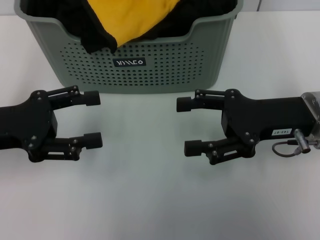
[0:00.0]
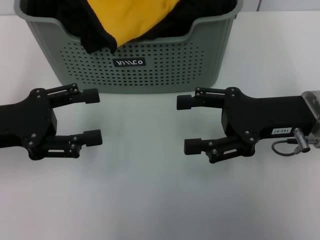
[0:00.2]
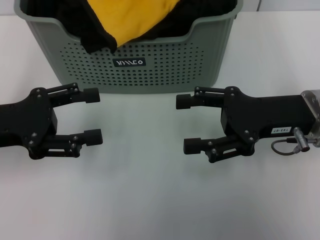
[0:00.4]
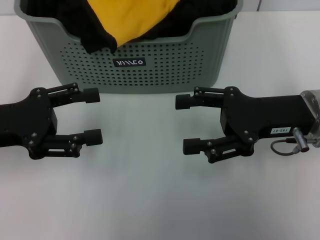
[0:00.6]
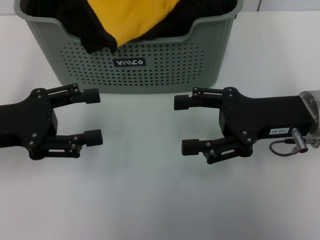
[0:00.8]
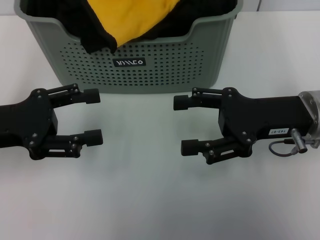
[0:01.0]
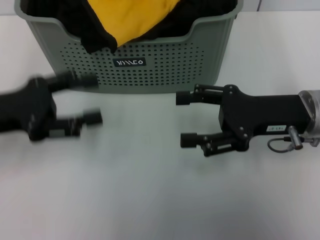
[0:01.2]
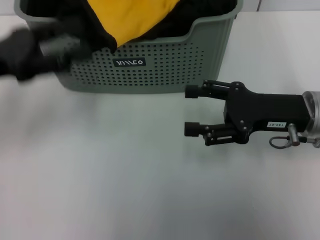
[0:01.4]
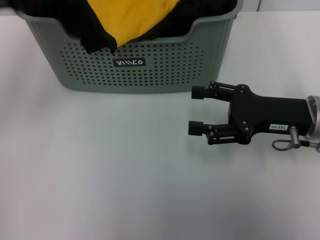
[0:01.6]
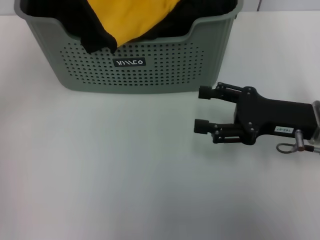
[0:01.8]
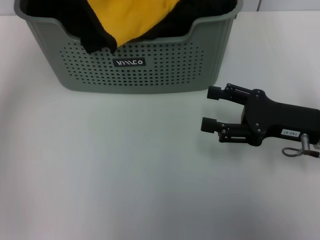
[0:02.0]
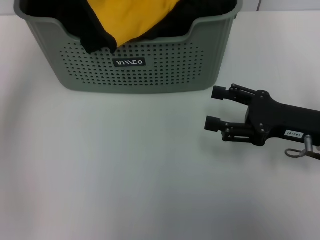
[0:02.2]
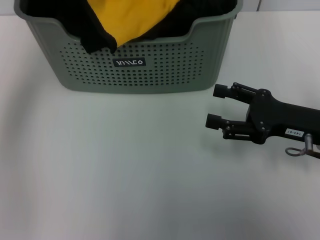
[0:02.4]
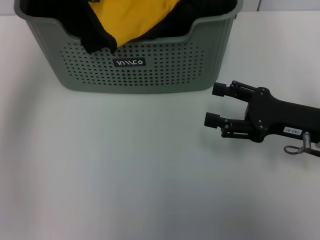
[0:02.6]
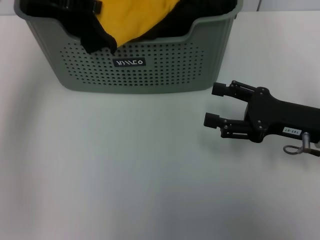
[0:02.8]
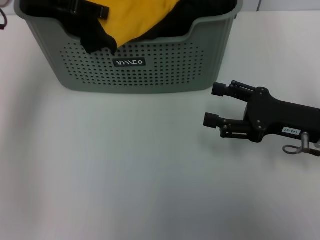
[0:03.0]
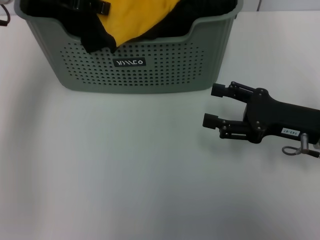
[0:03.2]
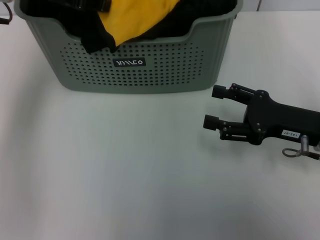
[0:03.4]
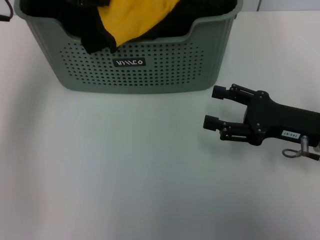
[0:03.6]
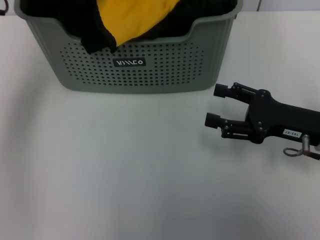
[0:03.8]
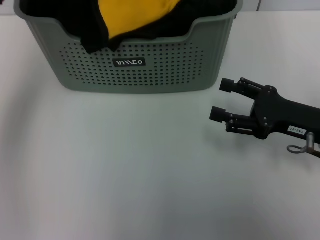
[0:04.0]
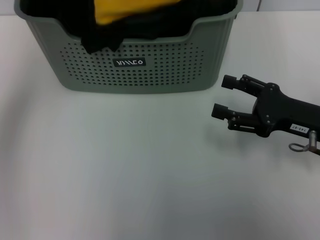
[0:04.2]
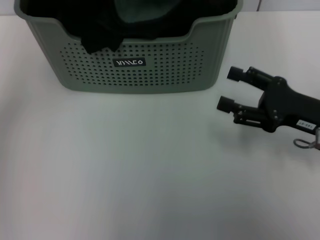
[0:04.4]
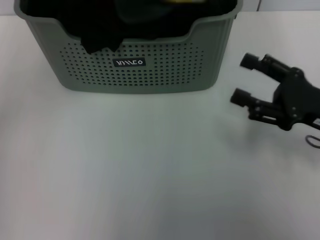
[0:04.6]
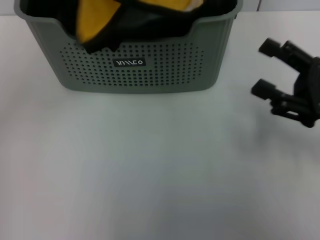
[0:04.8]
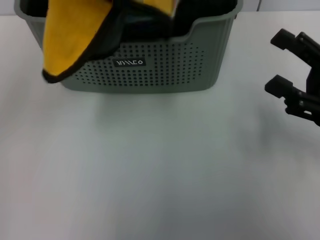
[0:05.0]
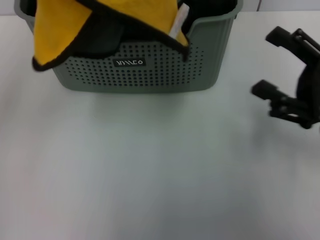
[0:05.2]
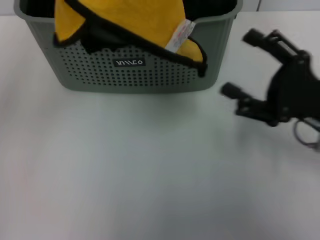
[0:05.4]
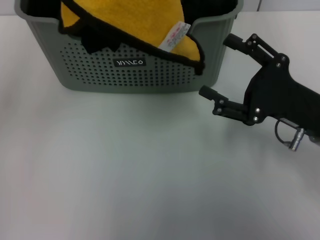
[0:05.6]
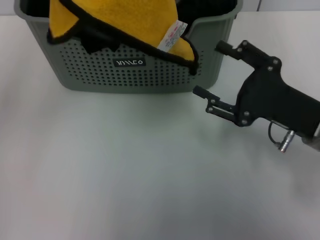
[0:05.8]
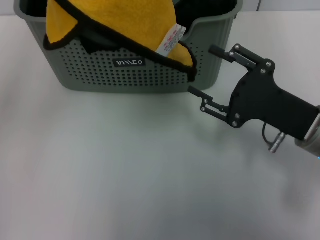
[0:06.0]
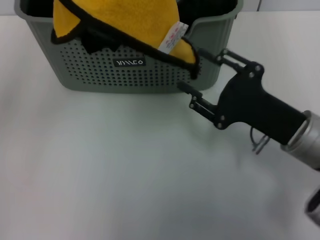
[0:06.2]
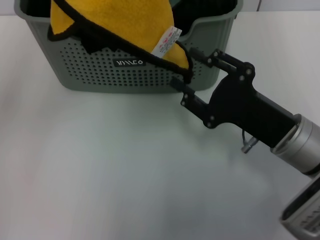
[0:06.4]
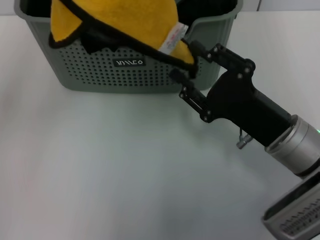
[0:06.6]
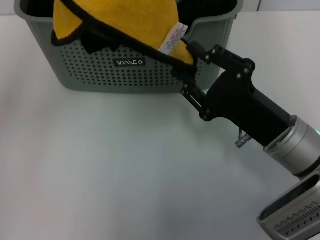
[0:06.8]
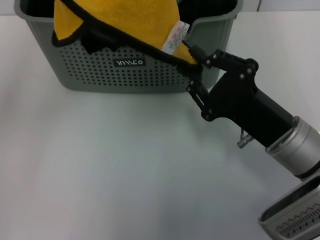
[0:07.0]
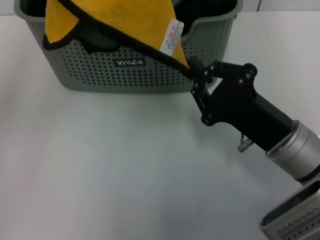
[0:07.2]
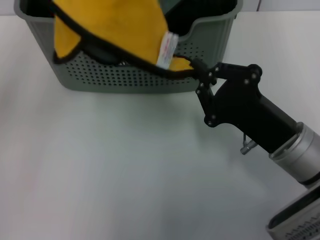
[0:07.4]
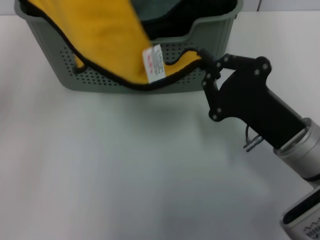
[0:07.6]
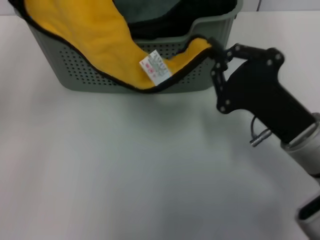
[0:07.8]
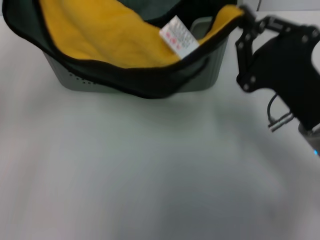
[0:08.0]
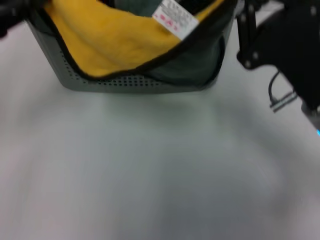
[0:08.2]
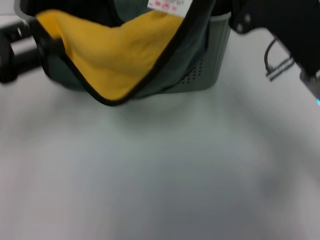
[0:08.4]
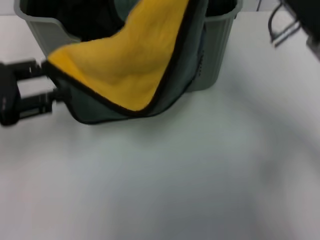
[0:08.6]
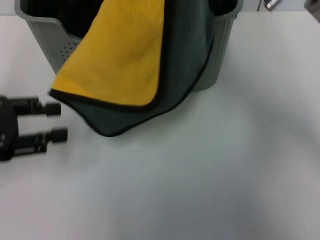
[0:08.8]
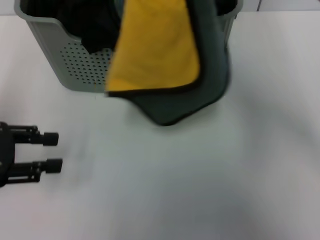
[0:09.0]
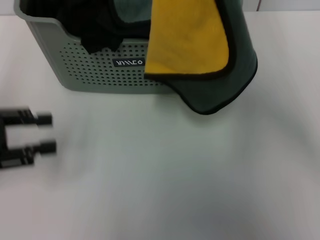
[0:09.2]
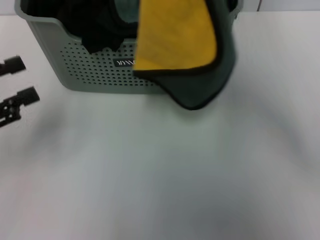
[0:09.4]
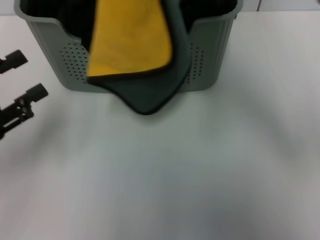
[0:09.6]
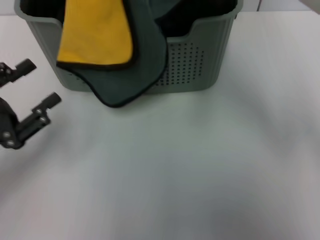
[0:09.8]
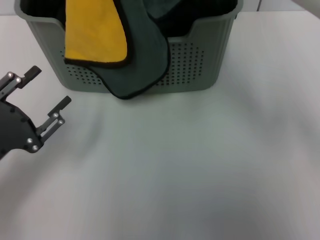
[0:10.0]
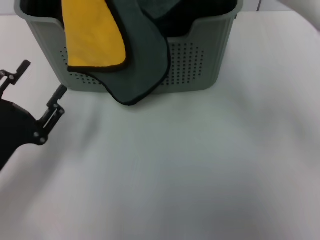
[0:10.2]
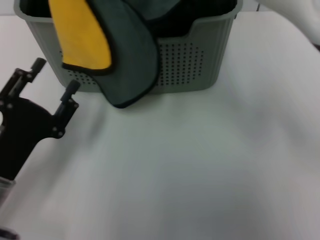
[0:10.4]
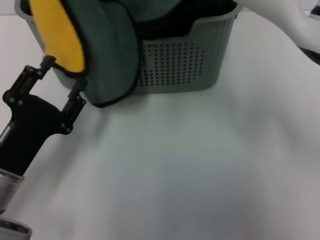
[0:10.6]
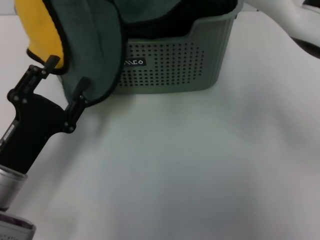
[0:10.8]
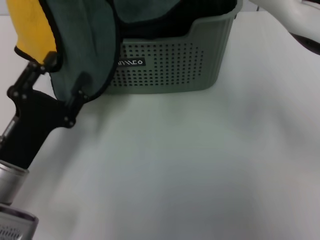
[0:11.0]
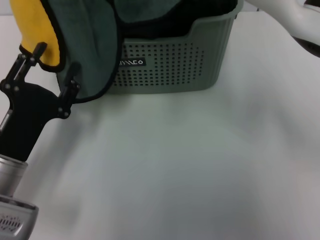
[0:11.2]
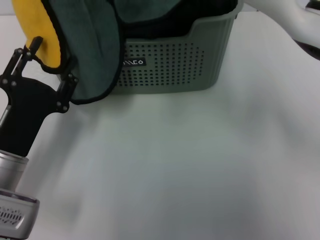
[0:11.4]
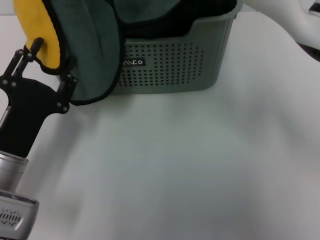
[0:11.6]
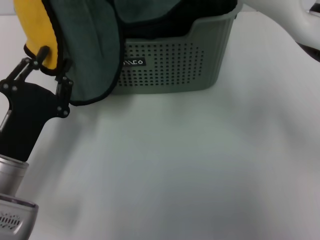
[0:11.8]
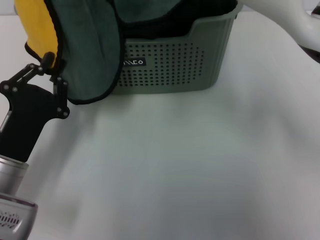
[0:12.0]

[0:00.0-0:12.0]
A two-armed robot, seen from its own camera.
Task of the whole recording: pick up the towel from the storage box and lay it flat on the table.
Step, 0:00.0 to 0:04.2: Pick up a towel with the left gripper.
Step, 0:04.4 to 0:07.2: Spread the towel flat with the left gripper.
0:00.0 to 0:01.6: The left gripper moves upward and forward, roughly 10 cm.
0:01.6 to 0:03.0: The left gripper is displaced forward and to the right by roughly 10 cm.
0:03.0 to 0:04.4: The left gripper heads upward and backward, covering some 10 cm, and closes up.
0:04.4 to 0:06.0: The left gripper travels backward by some 5 cm.
0:06.0 to 0:07.6: The right gripper closes. The left gripper ends up approximately 5 cm from where it was.
0:07.6 to 0:09.0: The left gripper is displaced downward by some 15 cm, and opens, while the right gripper goes about 20 cm upward.
0:09.0 to 0:10.4: The right gripper is displaced to the left and forward by about 15 cm. The left gripper heads downward and to the right, covering about 15 cm.
0:10.4 to 0:12.0: The grippers stay close to where they were, moving slightly.

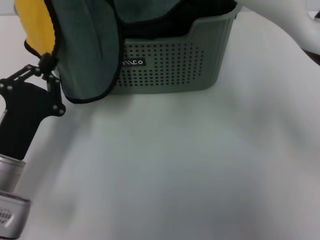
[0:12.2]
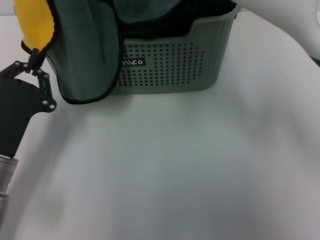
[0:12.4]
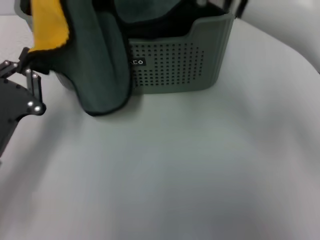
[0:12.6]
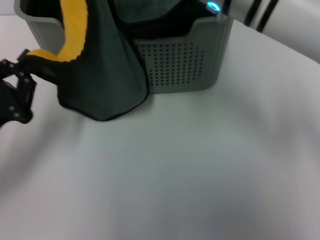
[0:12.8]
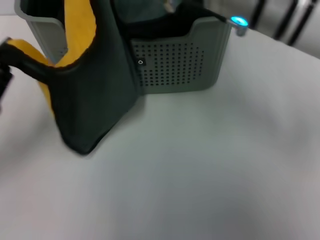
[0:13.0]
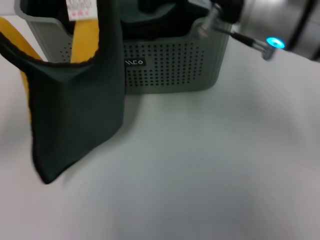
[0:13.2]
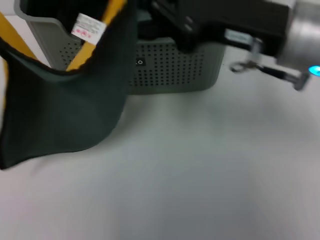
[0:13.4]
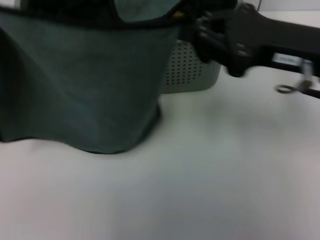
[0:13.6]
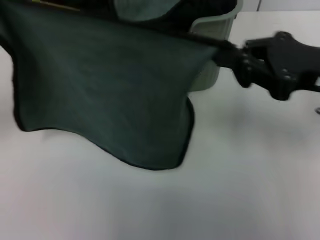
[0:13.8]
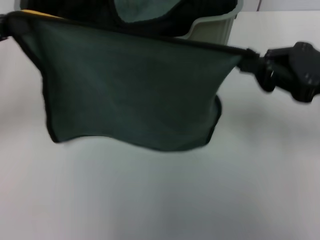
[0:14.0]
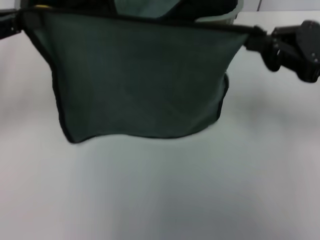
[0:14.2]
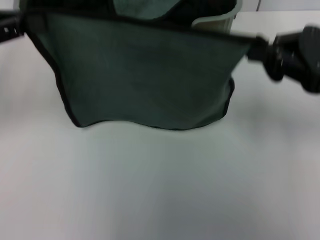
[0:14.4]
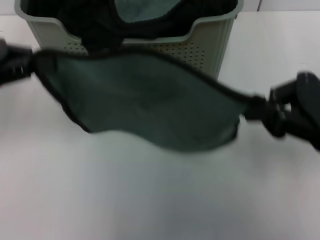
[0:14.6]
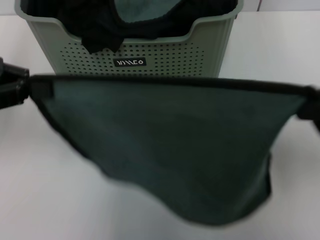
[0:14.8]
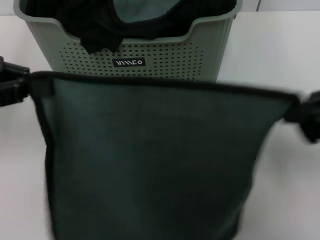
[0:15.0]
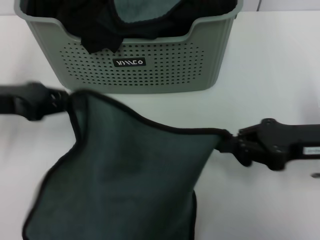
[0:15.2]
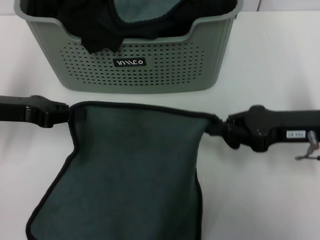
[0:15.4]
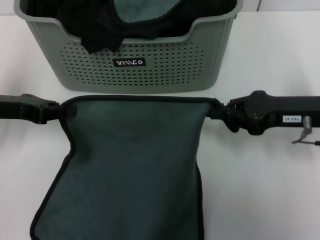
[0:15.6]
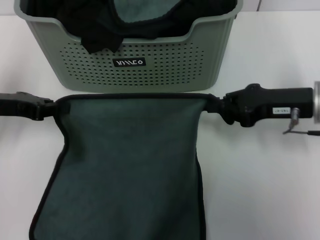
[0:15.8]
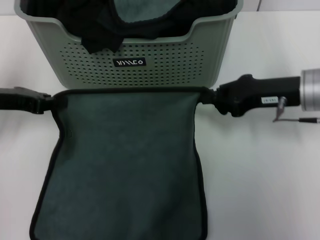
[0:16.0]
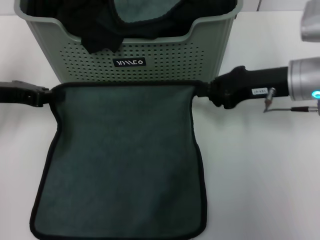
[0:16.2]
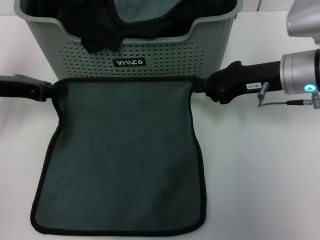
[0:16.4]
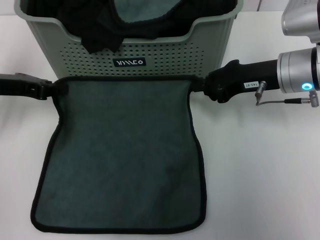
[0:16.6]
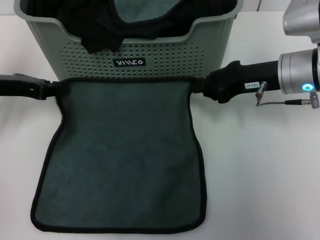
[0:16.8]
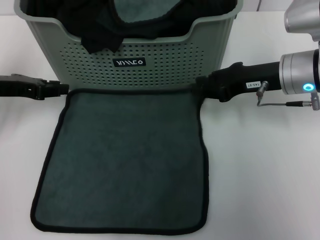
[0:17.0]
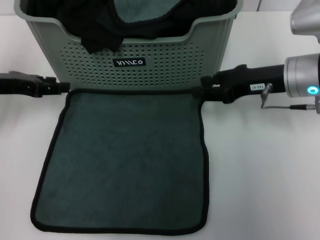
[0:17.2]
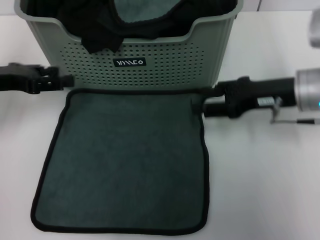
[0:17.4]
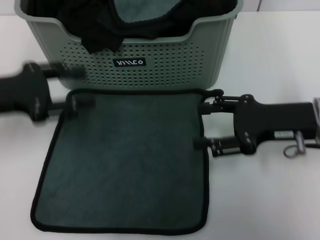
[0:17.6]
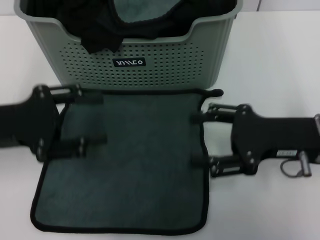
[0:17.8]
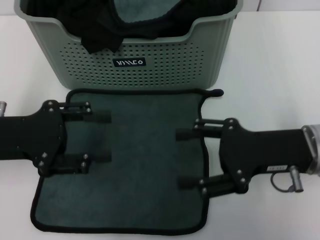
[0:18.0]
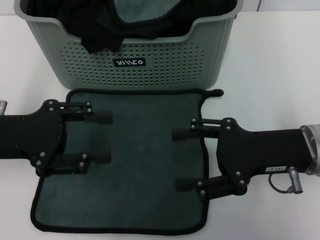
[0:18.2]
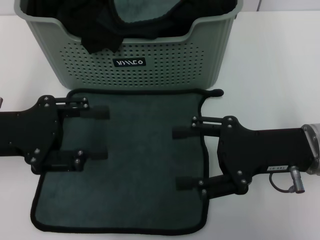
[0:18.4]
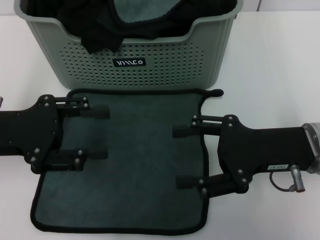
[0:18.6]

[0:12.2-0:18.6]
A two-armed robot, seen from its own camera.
Task of the whole recording: pick up the towel from the storage box and lay it flat on the table.
Step, 0:12.2 to 0:17.0: Spread the towel flat with the right gripper.
0:12.2 to 0:13.8: The right gripper travels to the right and downward by some 25 cm. Meanwhile the left gripper goes some 20 cm upward and to the left.
0:13.8 to 0:15.4: The right gripper goes approximately 10 cm downward, while the left gripper shifts roughly 10 cm downward and to the right.
0:15.4 to 0:17.0: The right gripper is displaced forward by approximately 10 cm.
0:17.0 to 0:18.6: Both grippers travel together backward, about 10 cm. The left gripper opens up; the right gripper opens.
